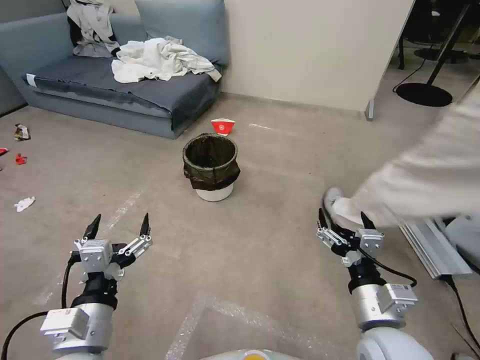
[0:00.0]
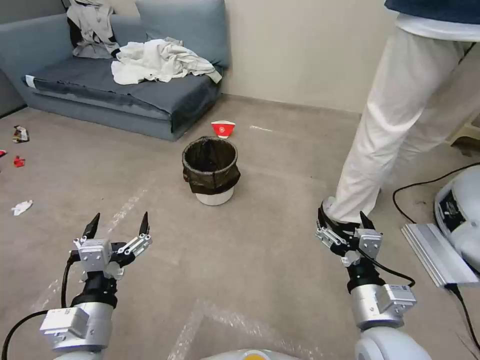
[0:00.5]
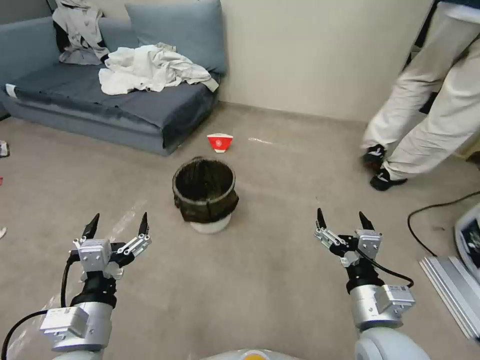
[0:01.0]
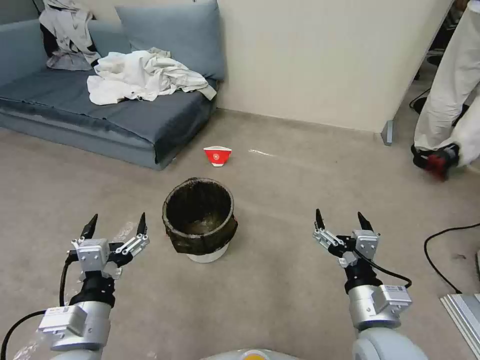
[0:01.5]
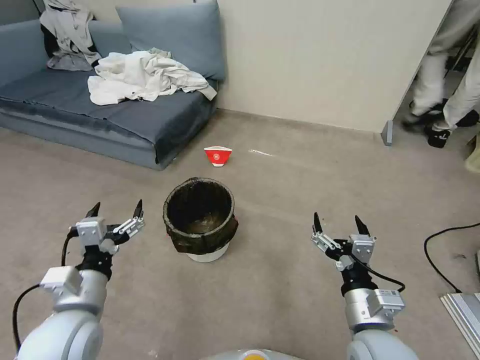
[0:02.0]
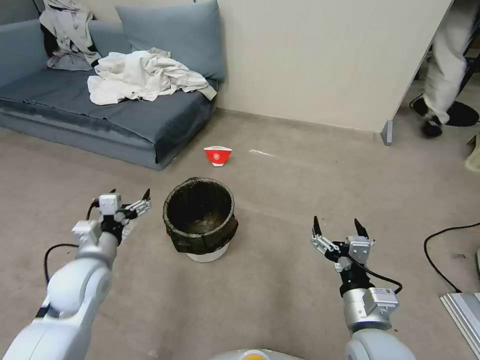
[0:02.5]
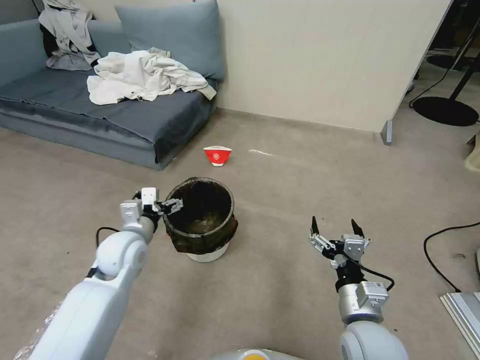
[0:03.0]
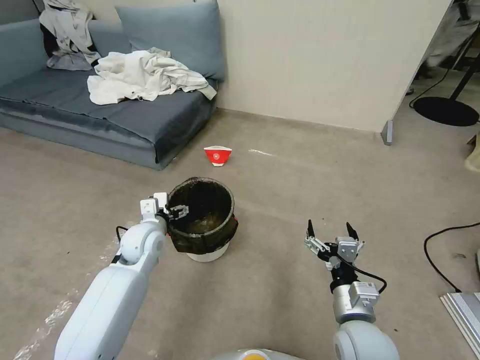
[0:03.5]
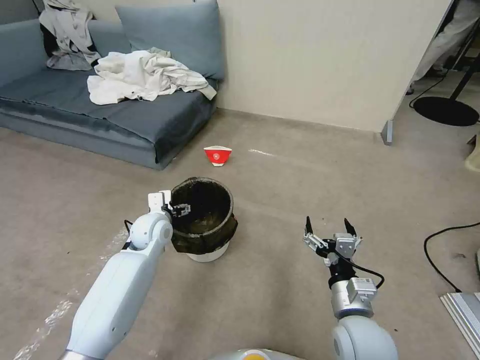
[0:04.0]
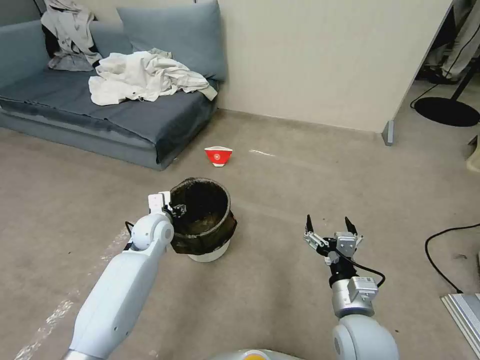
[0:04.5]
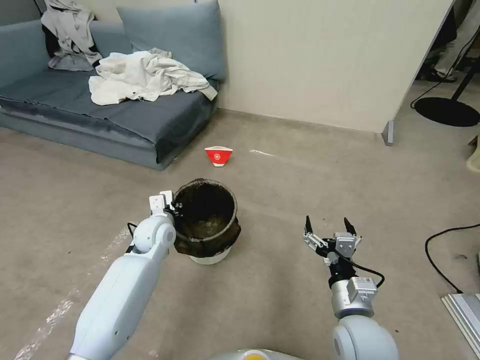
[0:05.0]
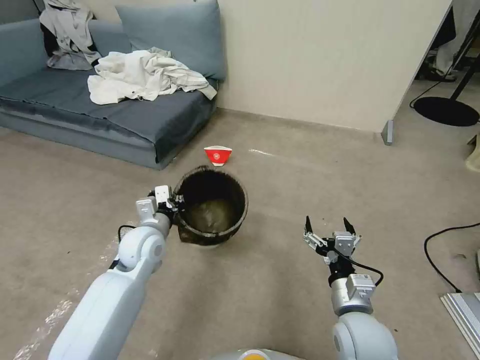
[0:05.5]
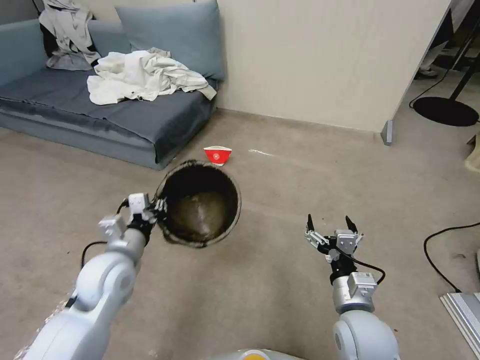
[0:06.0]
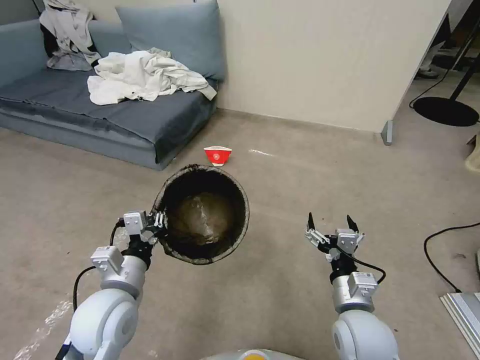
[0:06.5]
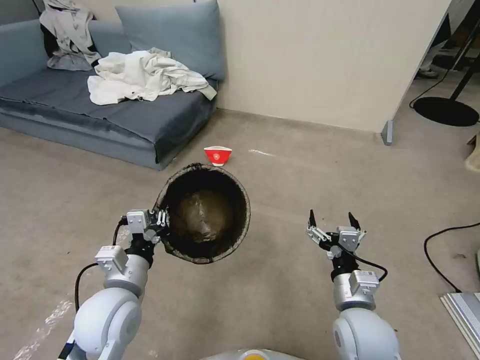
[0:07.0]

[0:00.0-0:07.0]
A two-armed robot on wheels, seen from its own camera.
Task of the whole recording: Pick up the trash can from the floor.
0:00.0 to 0:02.0: The left gripper ends up about 5 cm from where it was.
0:02.0 to 0:03.5: The left gripper is displaced forward by some 20 cm.
0:03.5 to 0:05.0: The left gripper changes place by roughly 5 cm, and closes up.
0:05.0 to 0:07.0: The left gripper moves backward, about 20 cm.

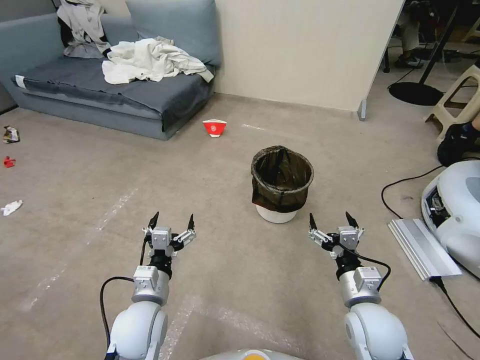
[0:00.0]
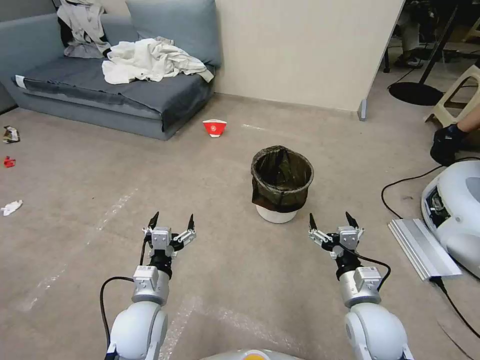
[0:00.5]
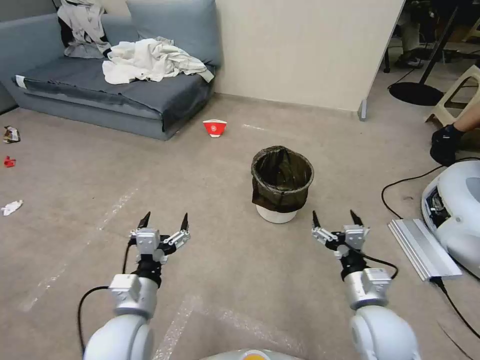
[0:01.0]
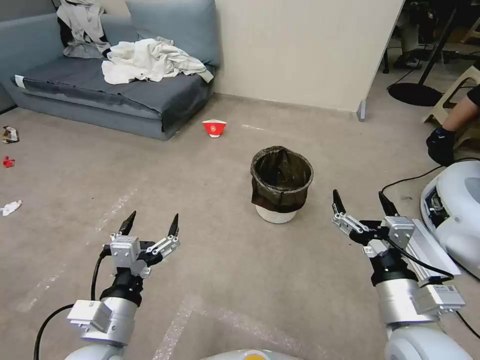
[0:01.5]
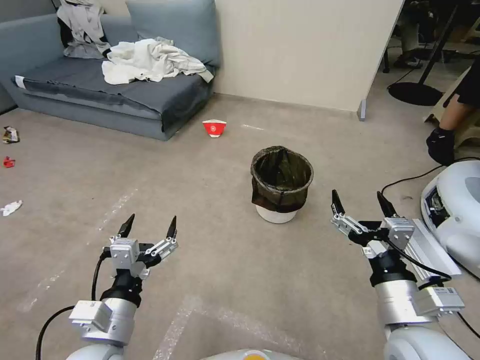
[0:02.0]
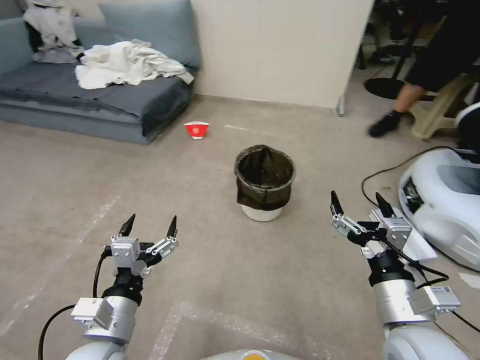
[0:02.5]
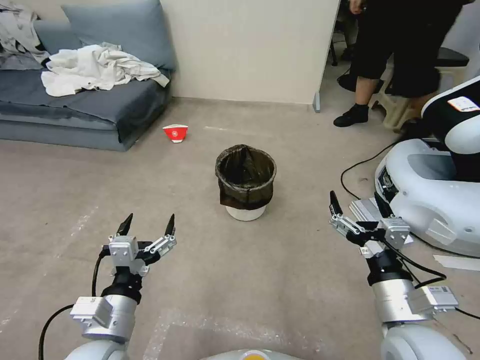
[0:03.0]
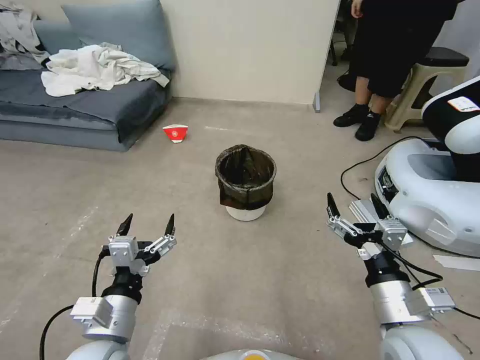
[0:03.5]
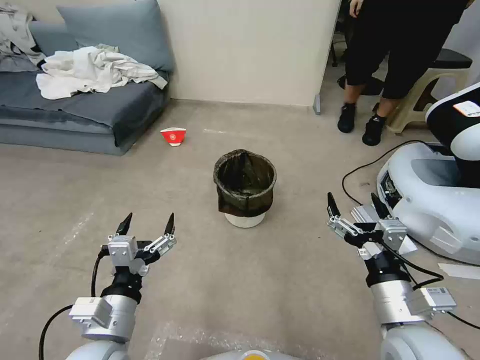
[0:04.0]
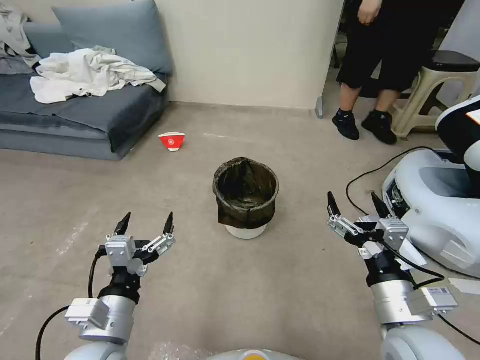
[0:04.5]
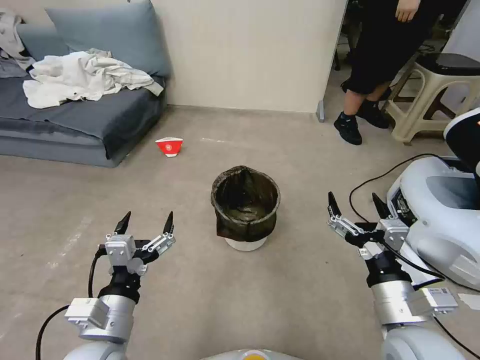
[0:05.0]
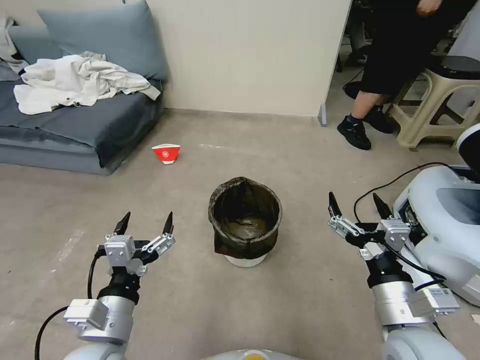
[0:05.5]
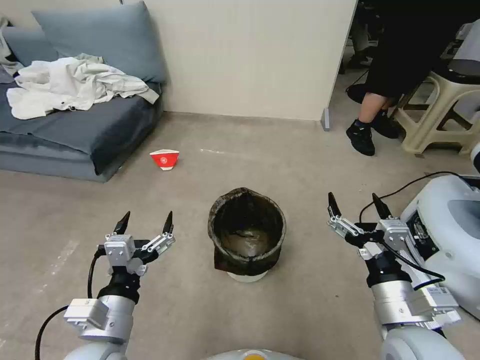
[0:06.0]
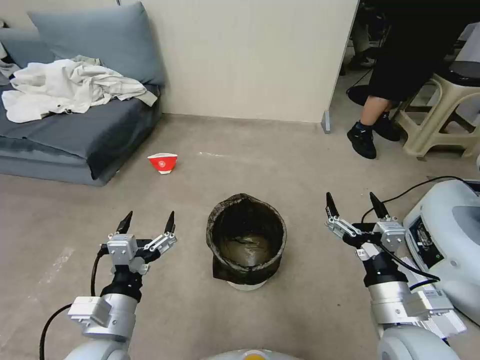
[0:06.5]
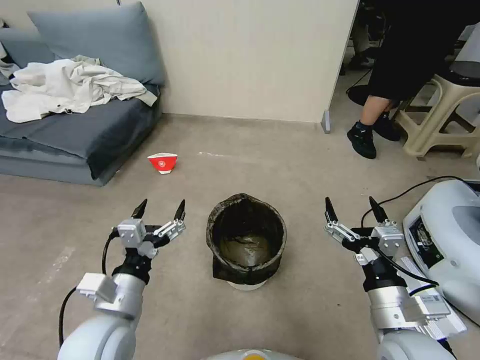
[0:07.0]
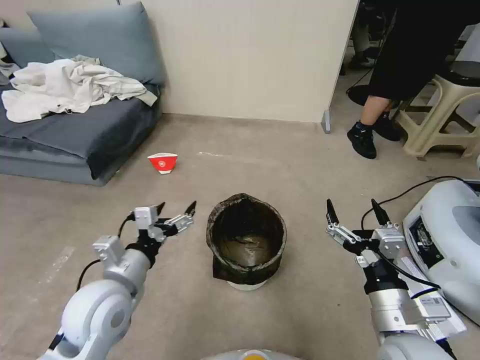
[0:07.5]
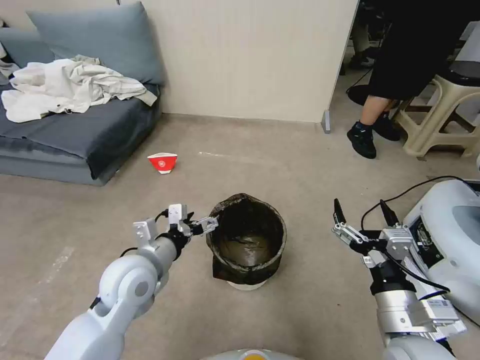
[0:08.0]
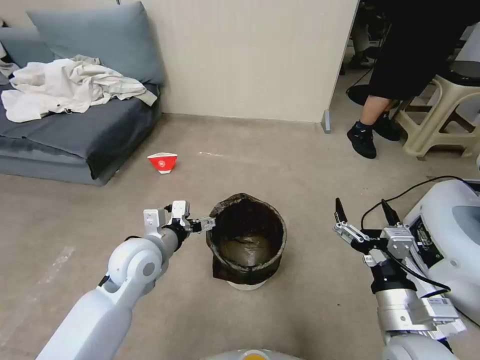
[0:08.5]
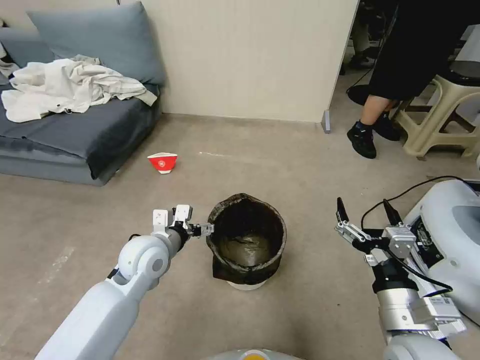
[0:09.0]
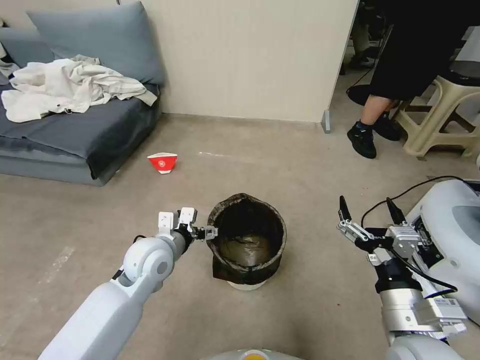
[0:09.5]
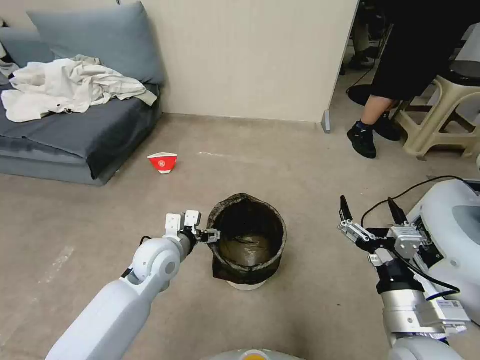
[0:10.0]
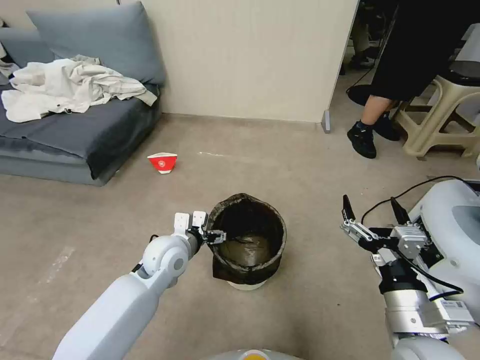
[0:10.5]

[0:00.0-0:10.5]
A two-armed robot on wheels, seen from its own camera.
Task of the whole recording: Pick up the trash can from the floor.
0:06.5 to 0:08.5: The left gripper heads forward, covering roughly 15 cm.
0:08.5 to 0:10.5: The left gripper changes place by approximately 5 cm.

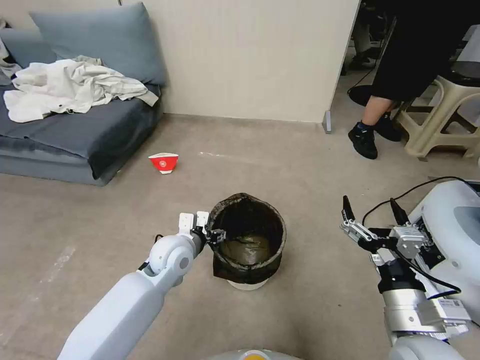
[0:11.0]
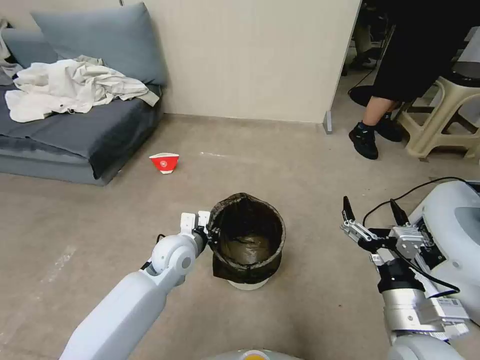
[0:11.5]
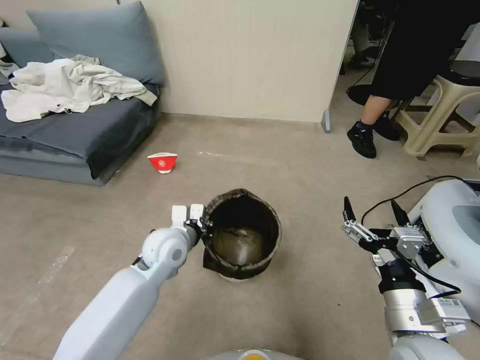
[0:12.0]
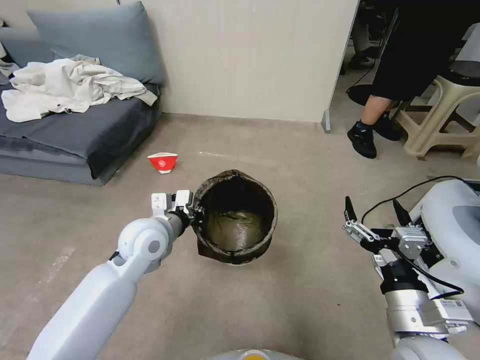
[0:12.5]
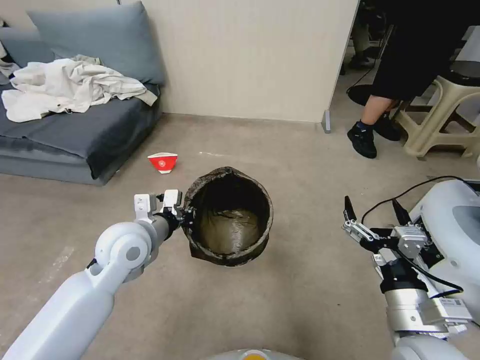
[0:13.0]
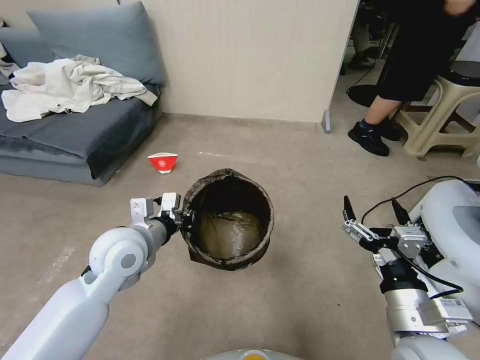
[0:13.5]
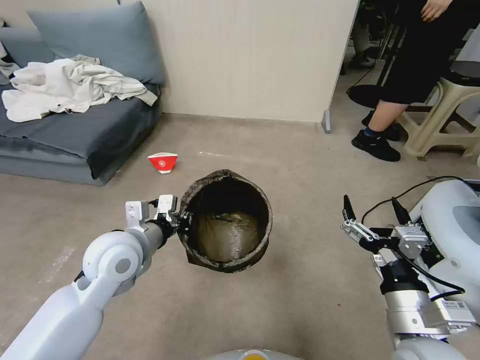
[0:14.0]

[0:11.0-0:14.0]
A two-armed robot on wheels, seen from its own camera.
Task of the whole recording: Pick up the trash can from the floor.
0:11.0 to 0:12.5: The left gripper is displaced upward by roughly 5 cm, and closes up.
0:12.5 to 0:14.0: The left gripper heads backward, covering roughly 5 cm.
